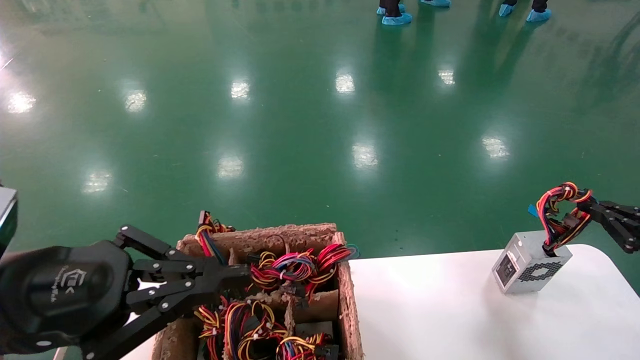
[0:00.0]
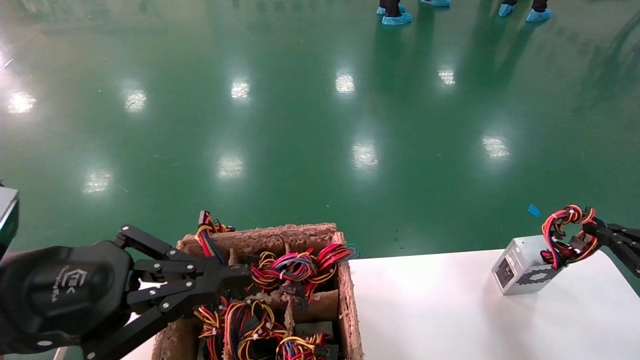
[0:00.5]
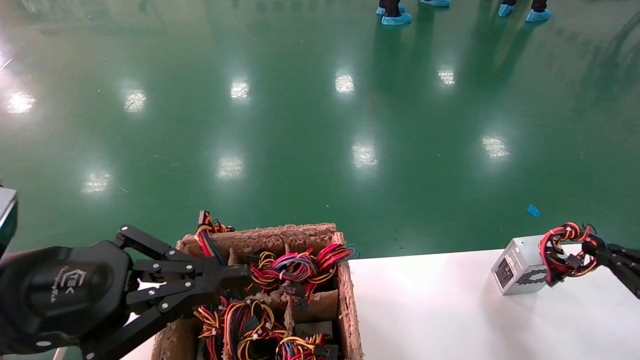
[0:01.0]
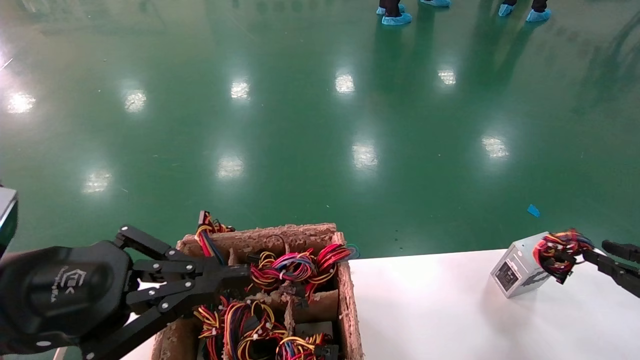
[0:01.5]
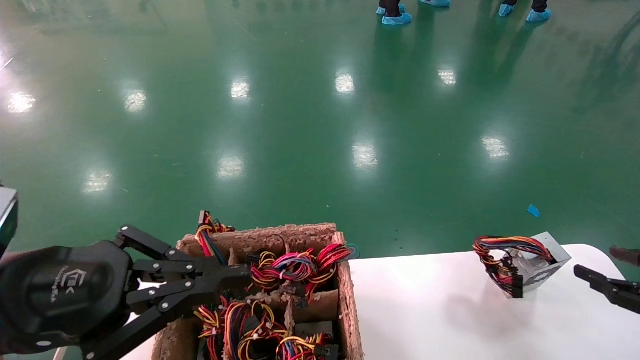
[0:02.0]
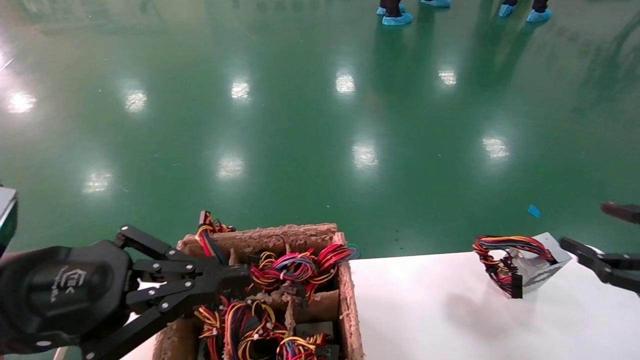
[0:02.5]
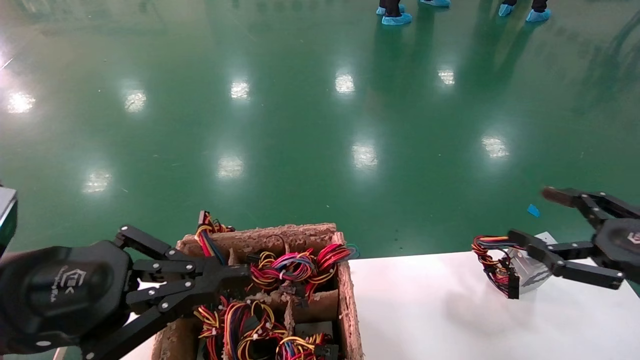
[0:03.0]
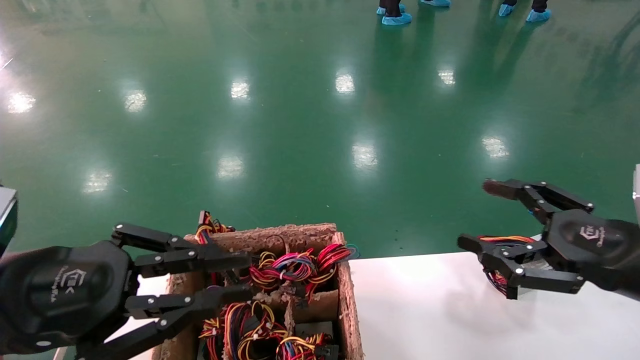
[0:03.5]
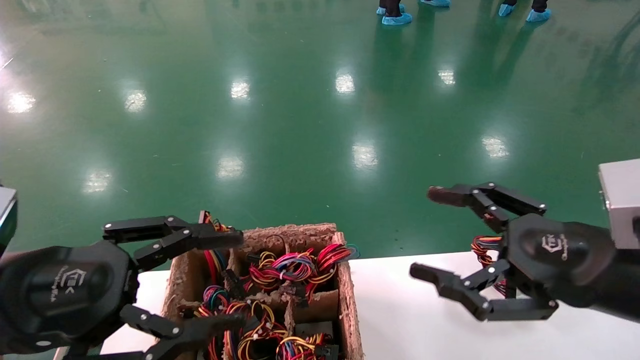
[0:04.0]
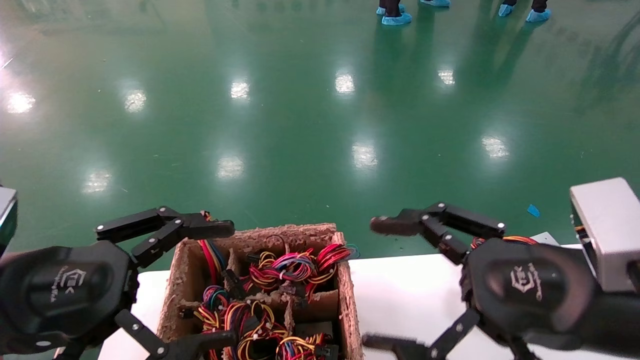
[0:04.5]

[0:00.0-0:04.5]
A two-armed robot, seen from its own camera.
Step, 0:00.0 to 0:02.0: Place the main unit power supply in the designated area.
0:00.0 to 0:02.0: The right gripper shifts by roughly 5 cm, and opens up.
0:02.0 to 0:04.5: The right gripper is displaced to the left and upward by roughly 30 cm, and opens. The left gripper opens up.

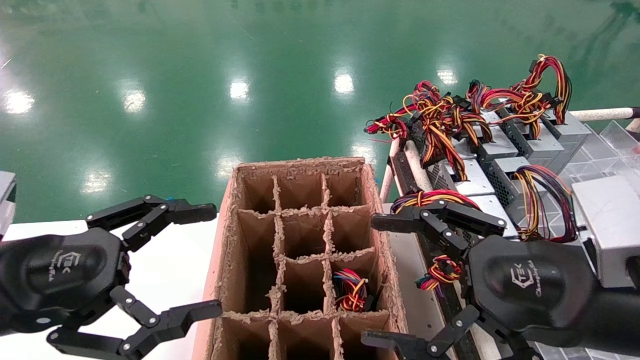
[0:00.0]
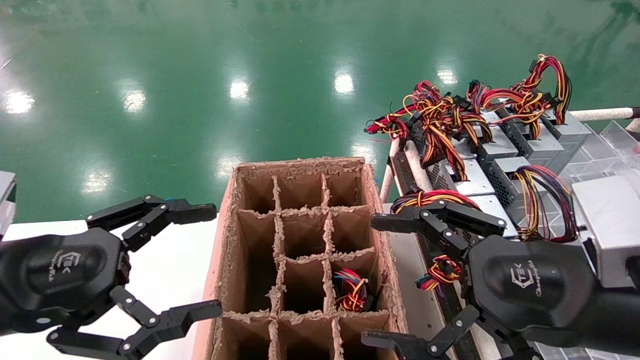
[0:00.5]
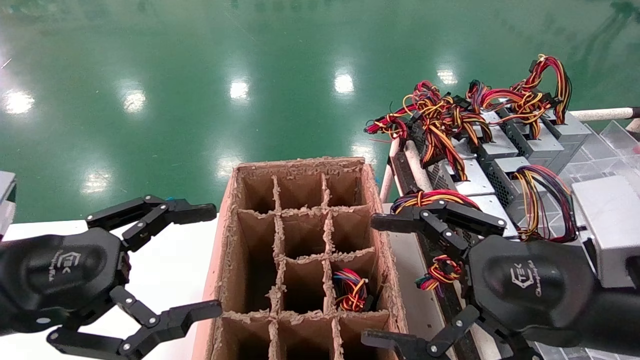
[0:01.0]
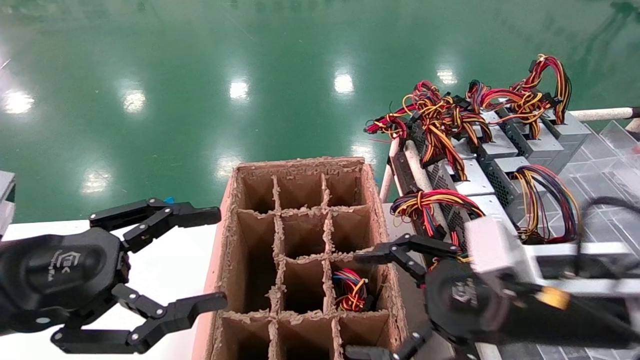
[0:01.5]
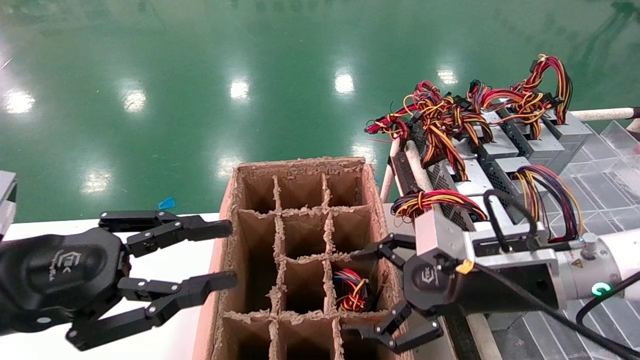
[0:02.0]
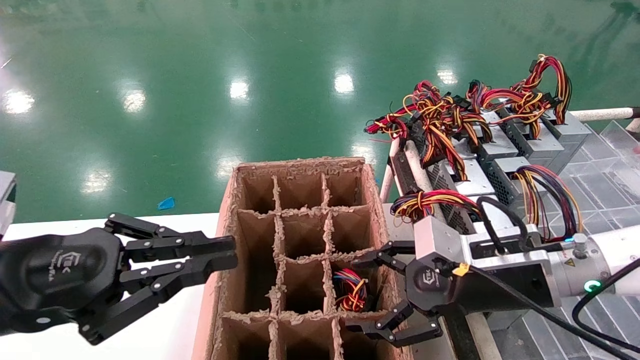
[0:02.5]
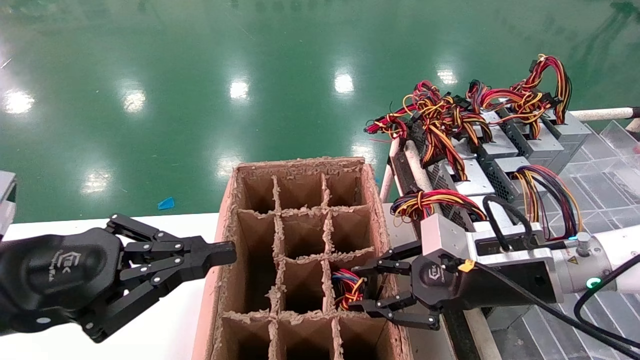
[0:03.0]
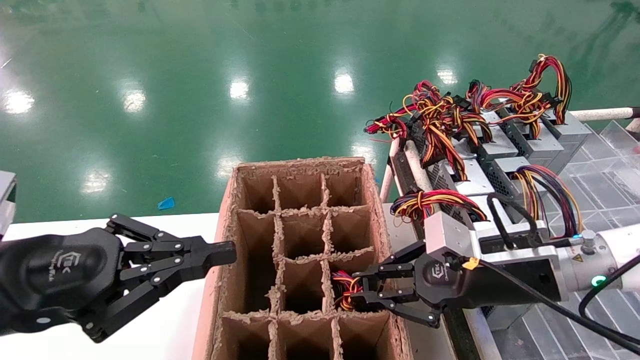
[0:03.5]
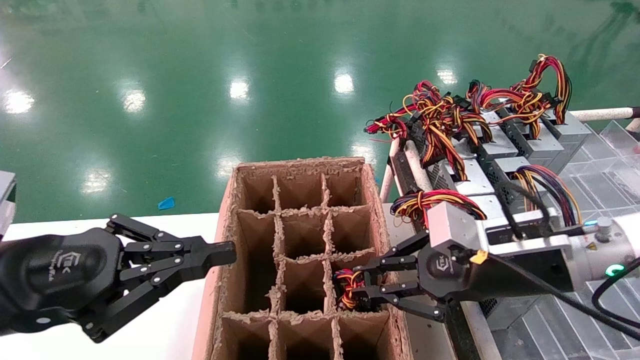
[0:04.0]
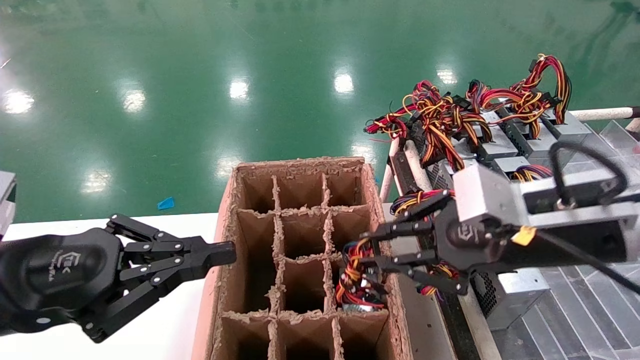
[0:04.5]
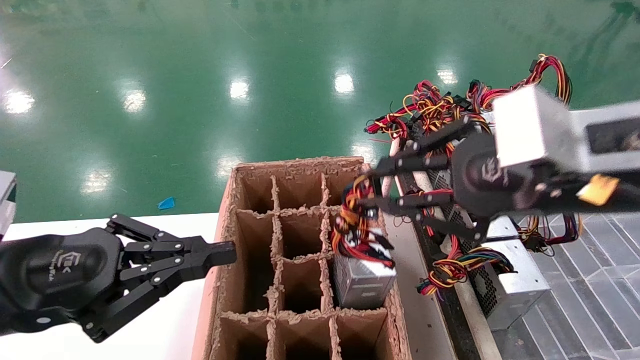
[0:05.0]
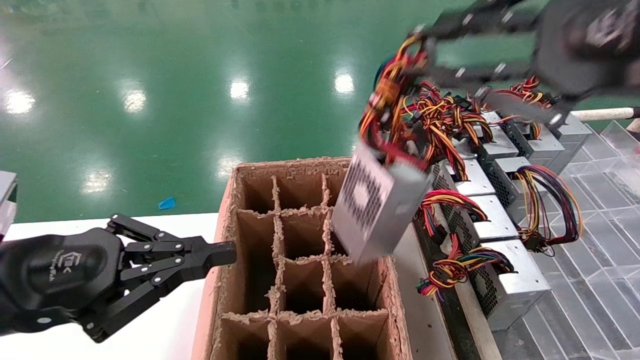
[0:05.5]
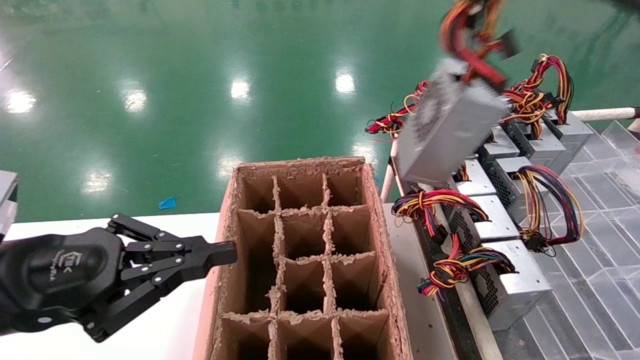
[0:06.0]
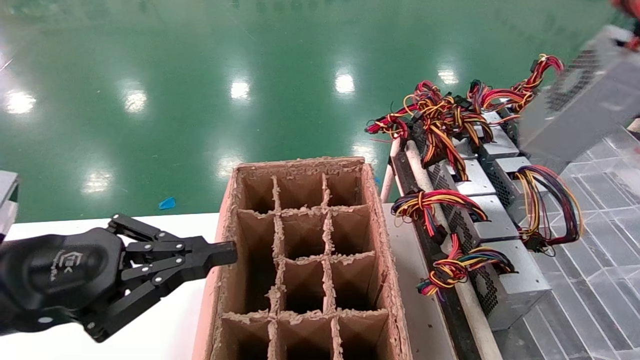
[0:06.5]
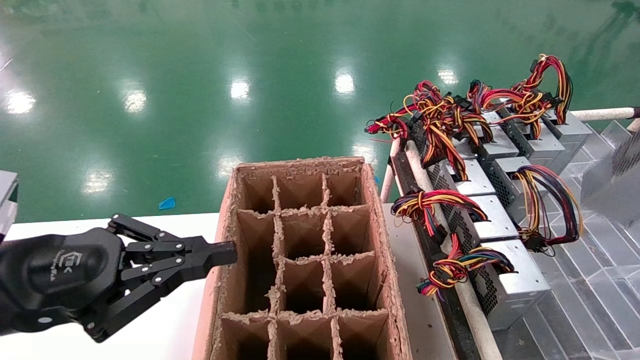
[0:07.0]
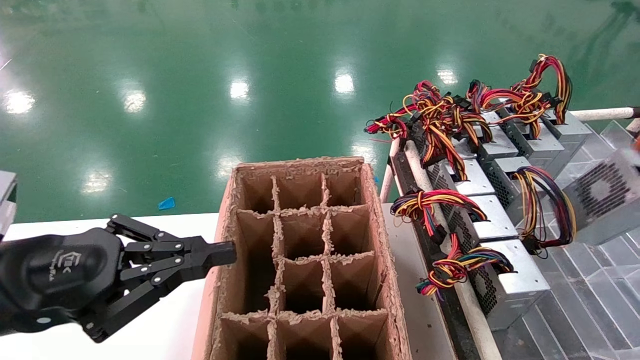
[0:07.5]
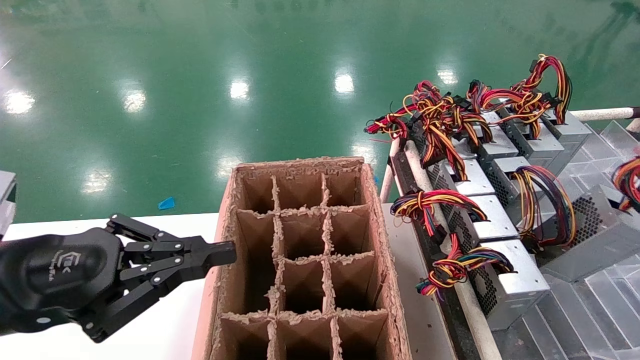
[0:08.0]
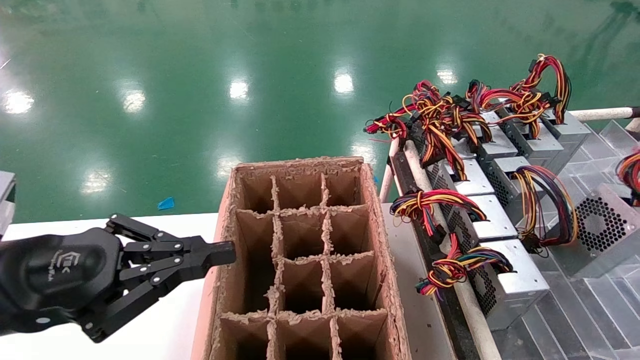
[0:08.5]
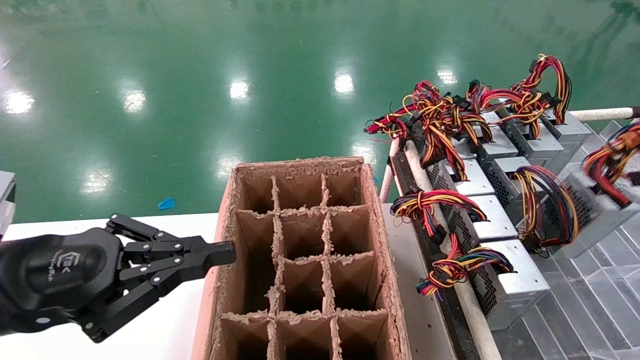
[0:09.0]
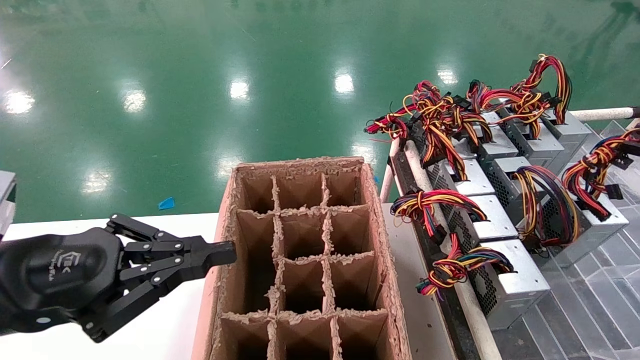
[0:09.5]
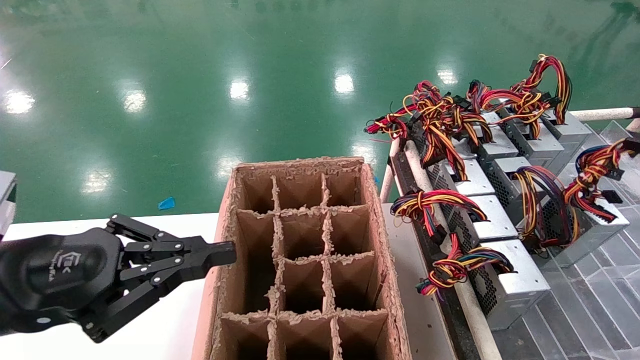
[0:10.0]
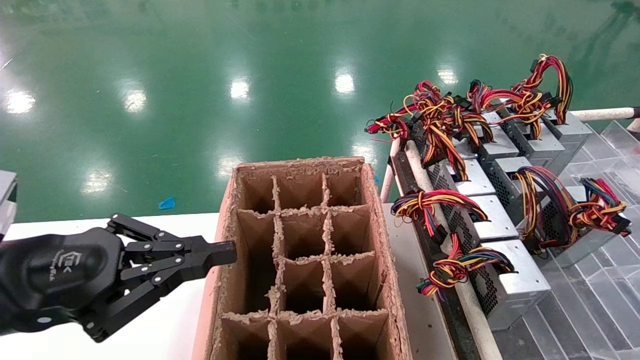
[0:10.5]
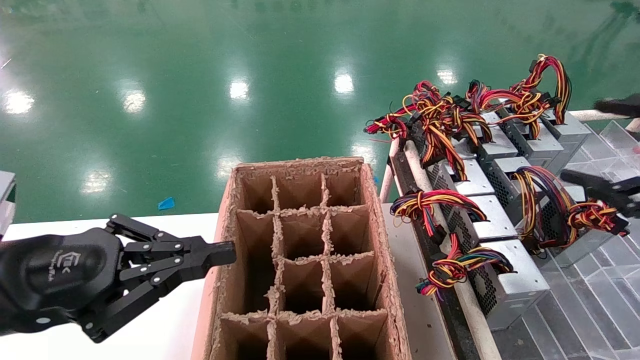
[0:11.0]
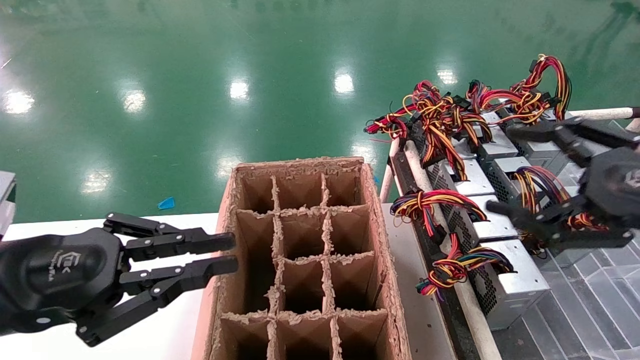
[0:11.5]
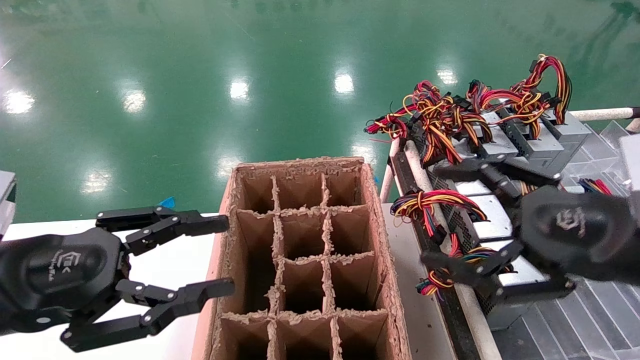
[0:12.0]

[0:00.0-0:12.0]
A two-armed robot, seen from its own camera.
Step, 0:01.5 to 0:03.5: Grab the main unit power supply from the containment box.
Step, 0:04.0 to 0:10.5: Place the main unit power supply in the designated area.
0:00.0 to 0:02.0: The right gripper travels forward by roughly 10 cm. Meanwhile the left gripper closes.
0:02.0 to 0:04.0: The right gripper closes its fingers, while the left gripper closes.
0:04.0 to 0:06.0: The right gripper travels upward and backward by approximately 30 cm.
0:06.0 to 0:08.0: The right gripper is displaced to the right and downward by approximately 25 cm.
0:08.0 to 0:10.0: The right gripper travels forward by roughly 5 cm.
0:10.0 to 0:12.0: The right gripper shifts some 20 cm to the left, and opens up, while the left gripper opens its fingers.

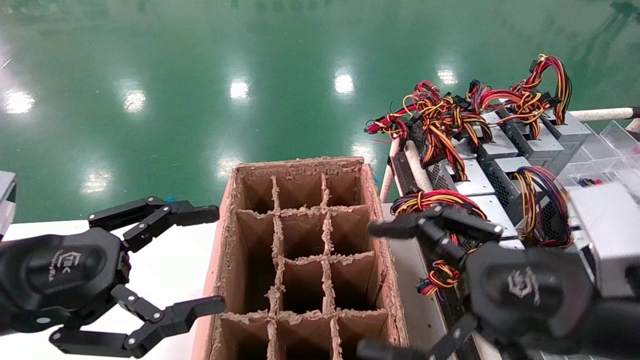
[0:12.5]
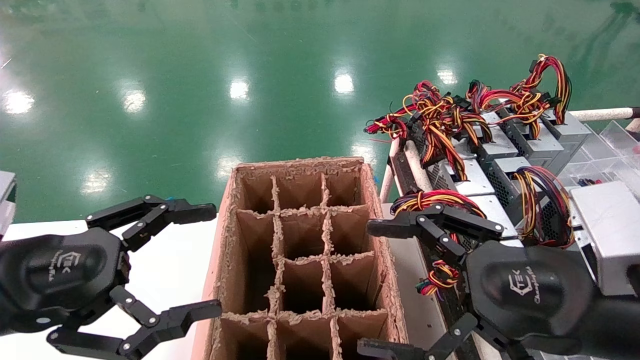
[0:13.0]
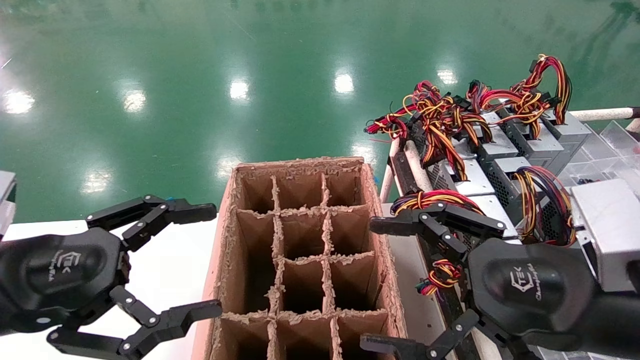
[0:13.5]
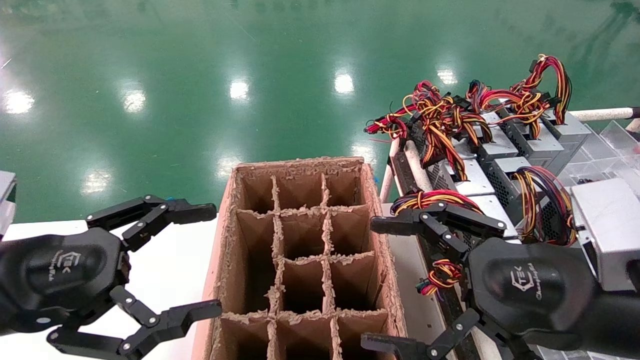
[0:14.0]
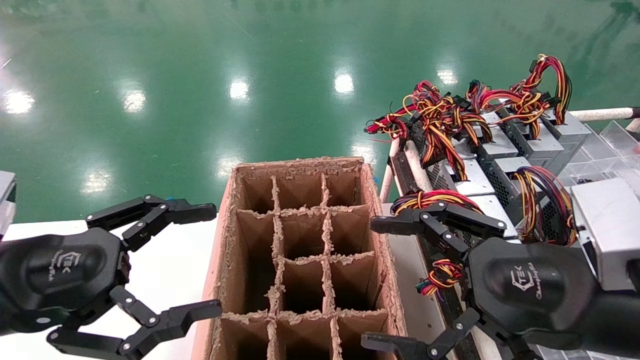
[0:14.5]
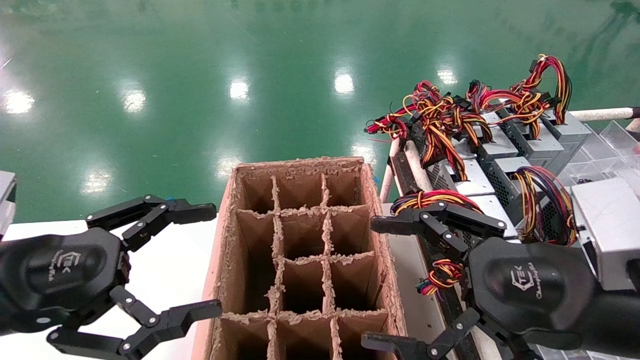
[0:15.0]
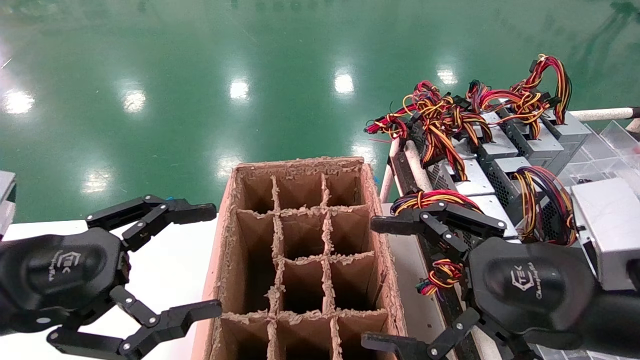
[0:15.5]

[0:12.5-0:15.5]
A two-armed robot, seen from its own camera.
0:12.5 to 0:15.5: The two grippers keep their place.
